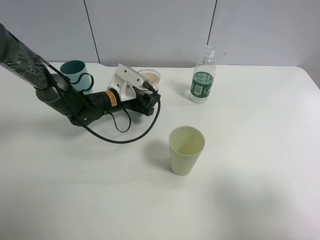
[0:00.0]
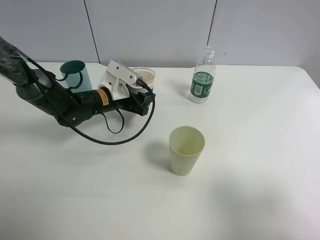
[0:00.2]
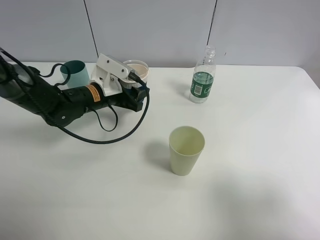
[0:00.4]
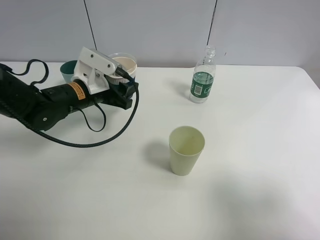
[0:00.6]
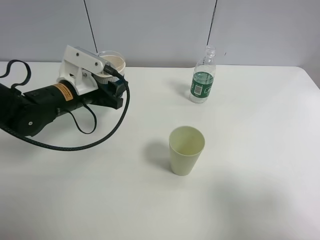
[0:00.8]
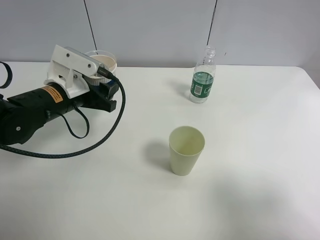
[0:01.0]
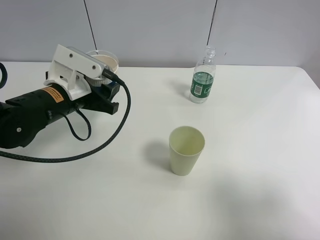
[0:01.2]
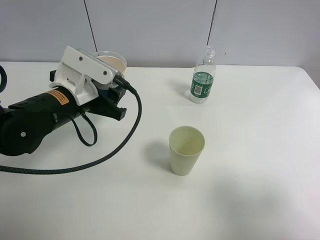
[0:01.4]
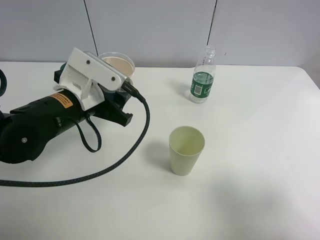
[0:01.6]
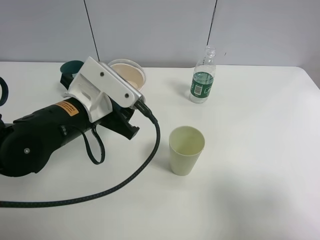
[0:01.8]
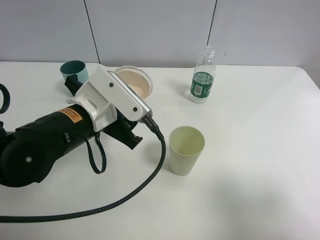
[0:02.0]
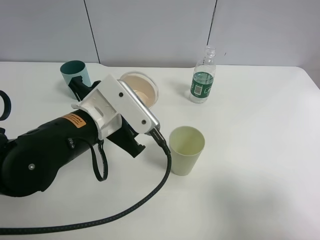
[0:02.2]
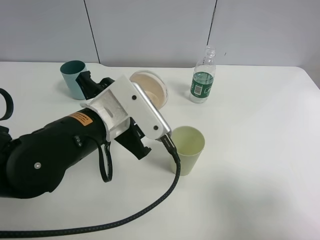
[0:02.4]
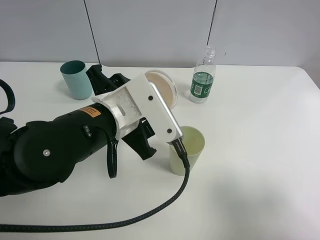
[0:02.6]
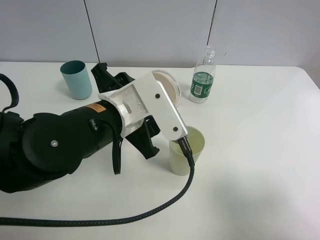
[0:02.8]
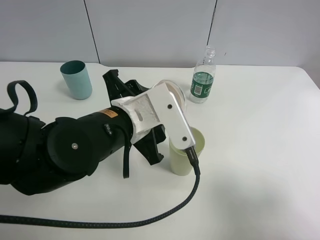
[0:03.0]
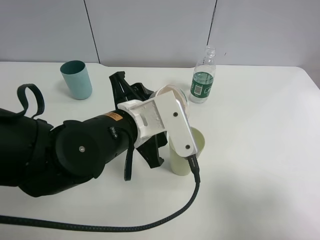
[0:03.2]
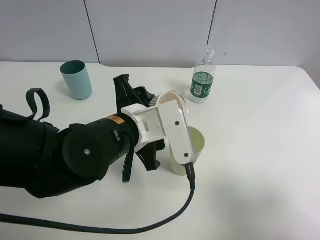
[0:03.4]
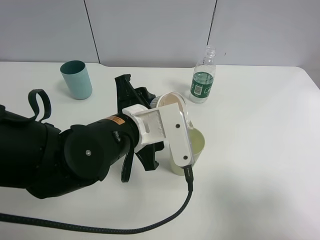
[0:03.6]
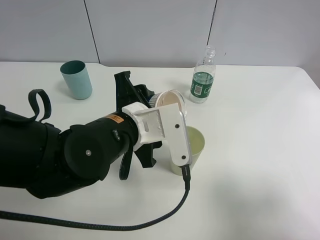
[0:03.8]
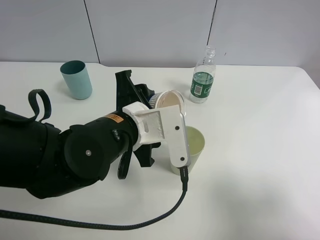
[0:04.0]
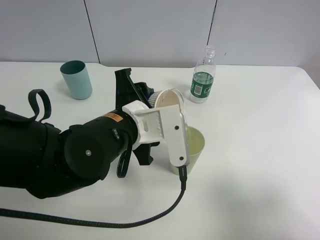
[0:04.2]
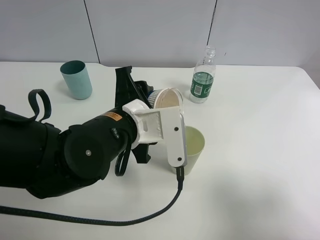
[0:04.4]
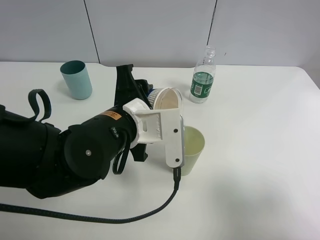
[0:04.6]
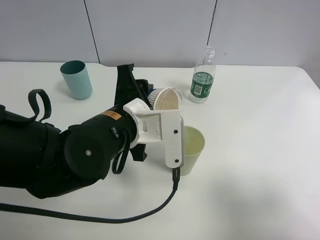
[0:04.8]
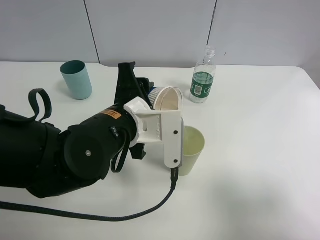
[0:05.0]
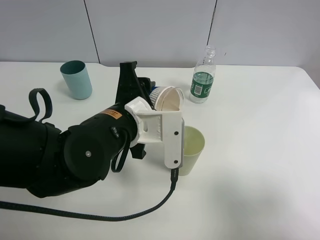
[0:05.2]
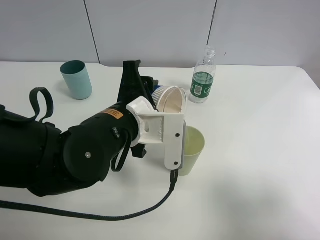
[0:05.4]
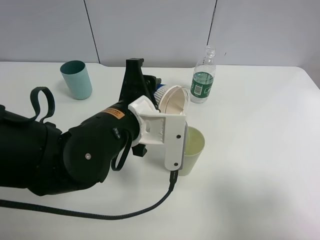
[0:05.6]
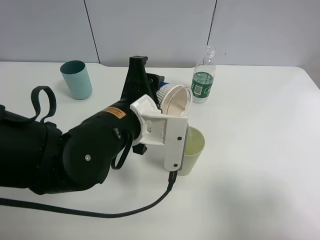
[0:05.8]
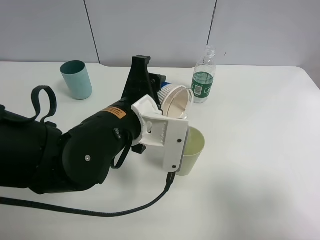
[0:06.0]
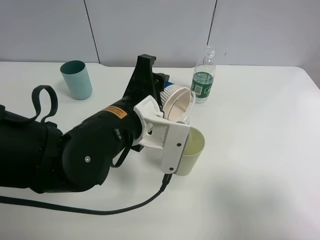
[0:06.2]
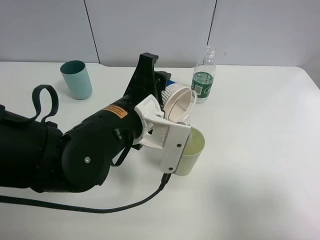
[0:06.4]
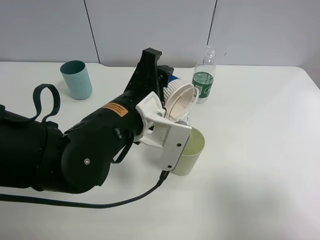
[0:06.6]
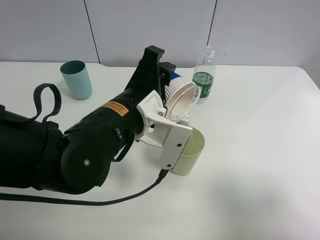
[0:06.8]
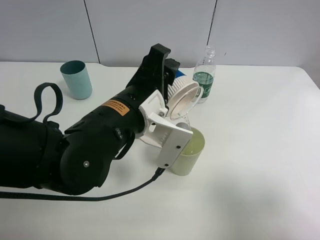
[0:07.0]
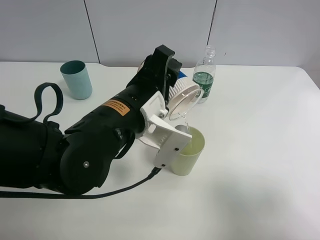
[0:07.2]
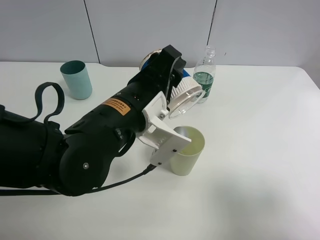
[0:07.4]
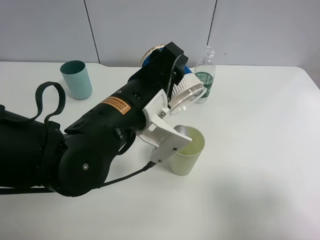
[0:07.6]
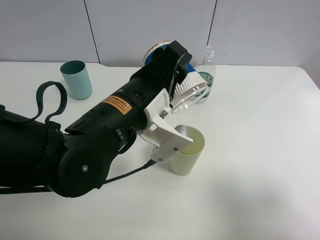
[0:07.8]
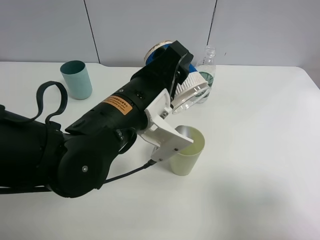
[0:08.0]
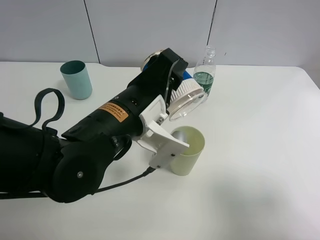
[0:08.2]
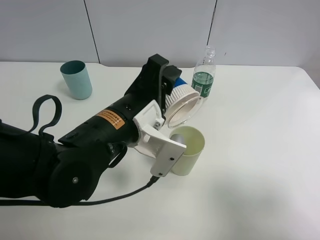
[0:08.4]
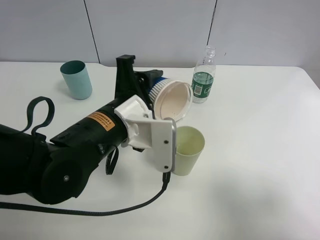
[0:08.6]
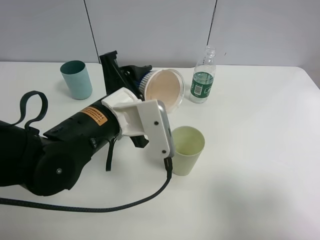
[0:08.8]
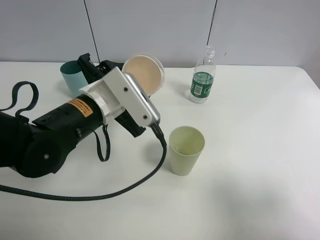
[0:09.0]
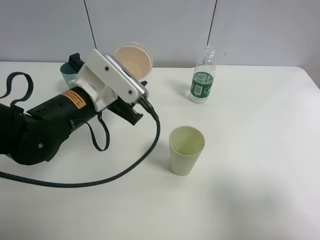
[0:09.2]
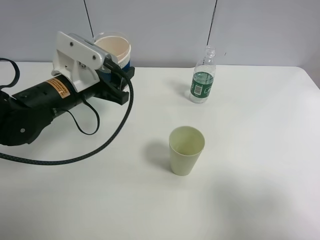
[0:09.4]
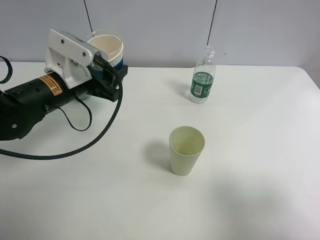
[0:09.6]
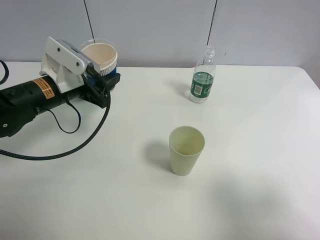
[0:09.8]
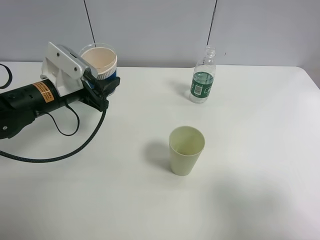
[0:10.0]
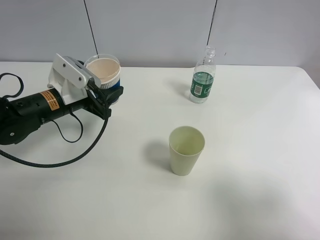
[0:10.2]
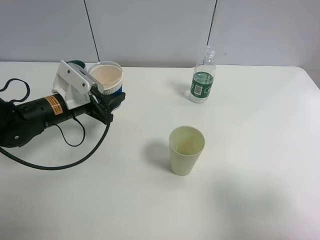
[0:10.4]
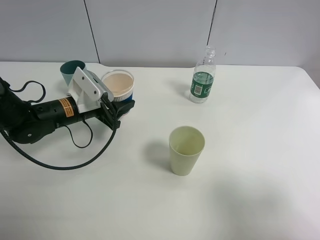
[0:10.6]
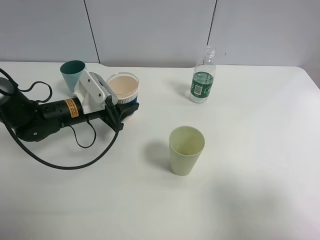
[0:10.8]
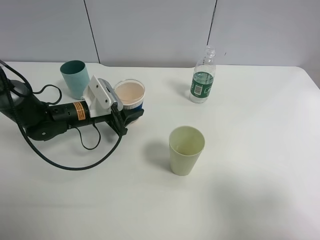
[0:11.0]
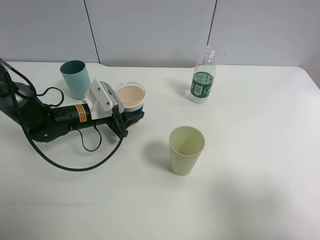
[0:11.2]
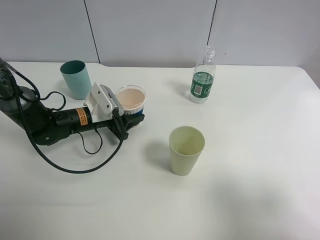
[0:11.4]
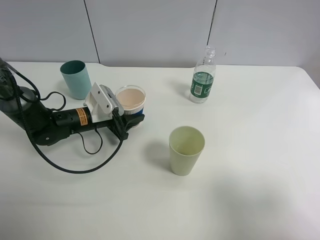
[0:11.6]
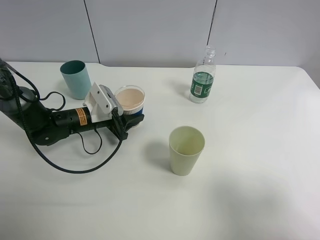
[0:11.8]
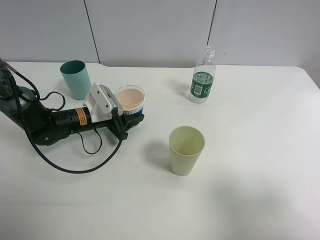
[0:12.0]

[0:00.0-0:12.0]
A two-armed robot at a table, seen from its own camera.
Task of the whole recording: use a clamp to hold the bottle of the drink, pour the beverage into a random cup, then clamp the cup containing the drink and pour the drink into another random cup.
Step, 0:01.0 to 0:07.6: Pour water into the green plastic cup with left gripper.
0:00.0 to 0:01.6: The left gripper goes some 20 cm backward and upward.
0:01.6 to 0:03.0: The left gripper goes approximately 10 cm to the right.
0:04.4 to 0:06.0: There are only small adjustments of the grippers.
0:07.6 to 0:09.0: The left gripper is displaced to the left by roughly 5 cm.
0:09.0 to 0:10.4: The left gripper heads to the left, forward and downward, covering some 10 cm.
0:10.4 to 0:12.0: The left gripper travels downward by roughly 5 cm.

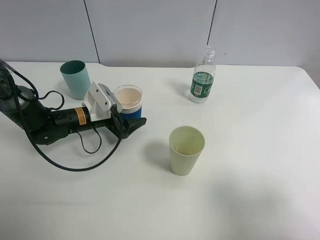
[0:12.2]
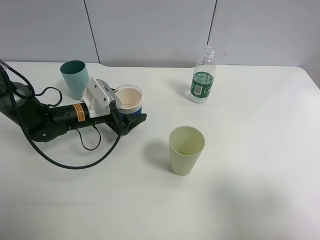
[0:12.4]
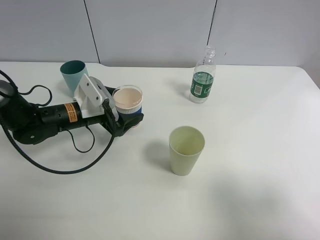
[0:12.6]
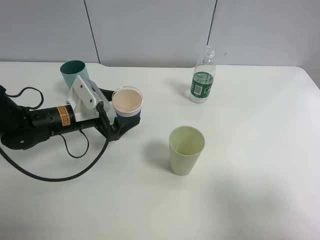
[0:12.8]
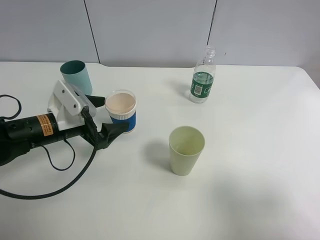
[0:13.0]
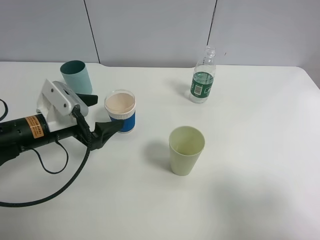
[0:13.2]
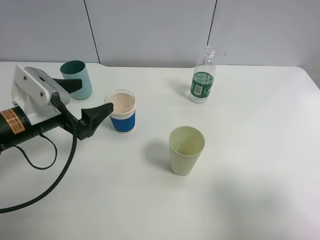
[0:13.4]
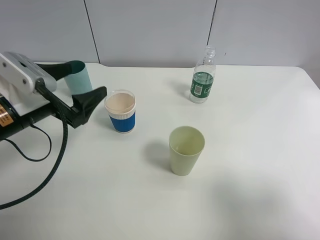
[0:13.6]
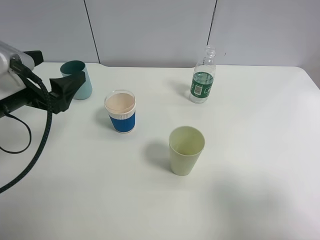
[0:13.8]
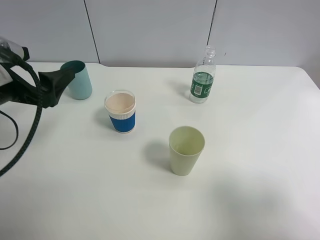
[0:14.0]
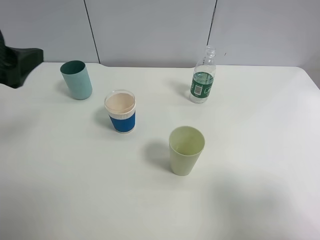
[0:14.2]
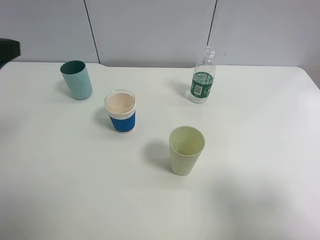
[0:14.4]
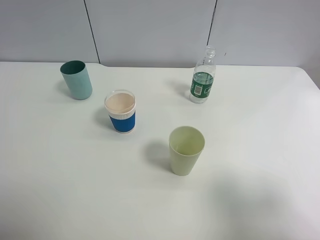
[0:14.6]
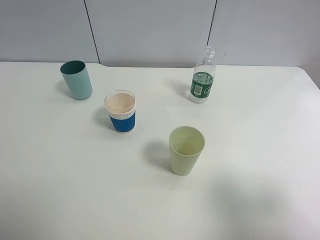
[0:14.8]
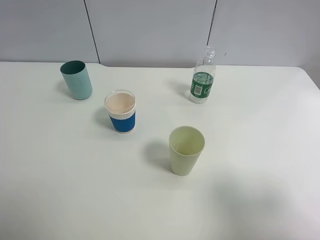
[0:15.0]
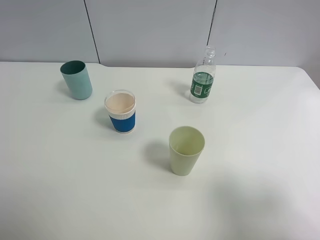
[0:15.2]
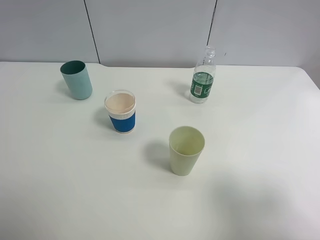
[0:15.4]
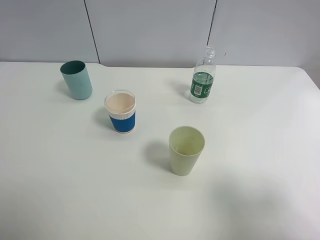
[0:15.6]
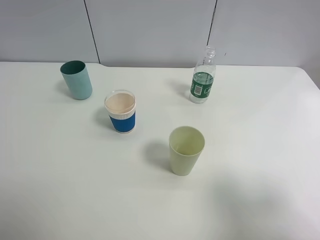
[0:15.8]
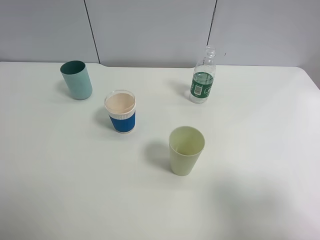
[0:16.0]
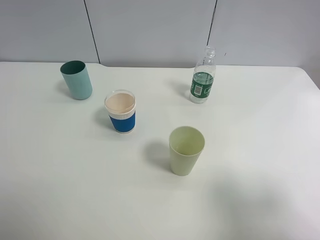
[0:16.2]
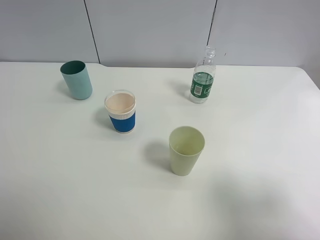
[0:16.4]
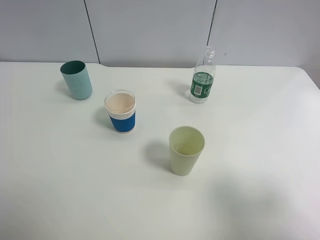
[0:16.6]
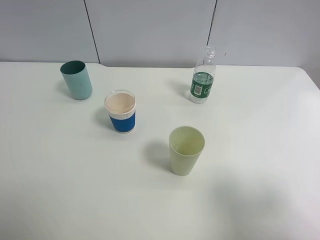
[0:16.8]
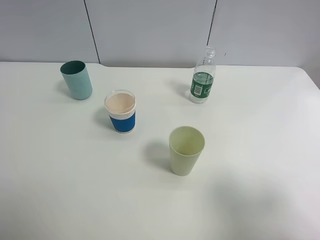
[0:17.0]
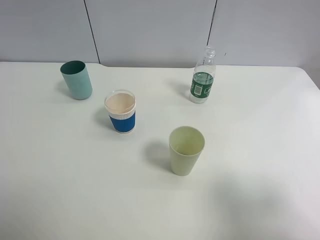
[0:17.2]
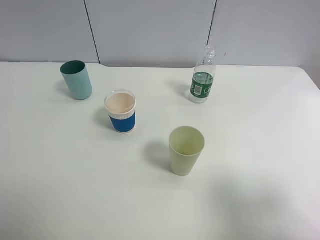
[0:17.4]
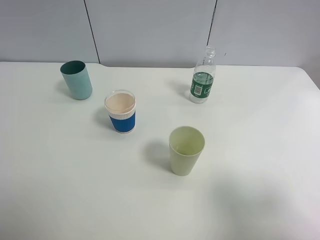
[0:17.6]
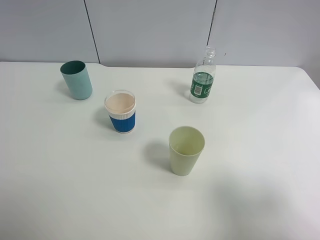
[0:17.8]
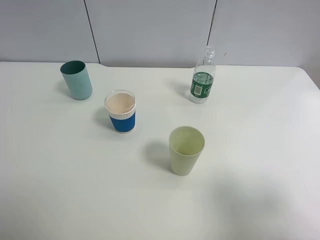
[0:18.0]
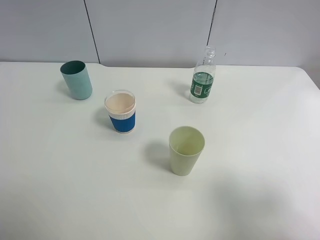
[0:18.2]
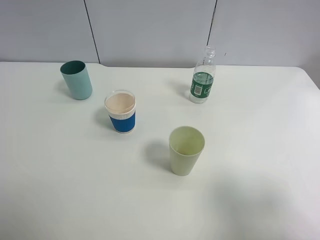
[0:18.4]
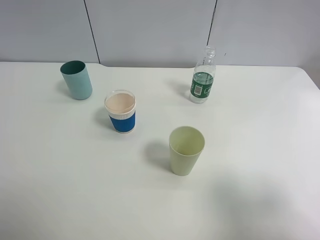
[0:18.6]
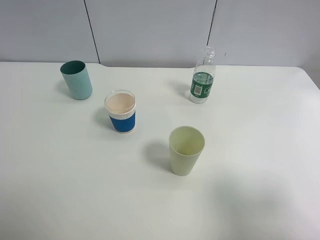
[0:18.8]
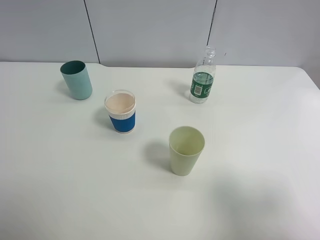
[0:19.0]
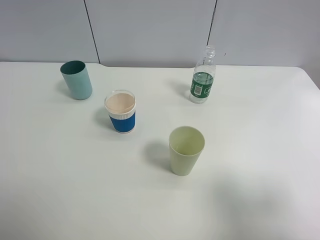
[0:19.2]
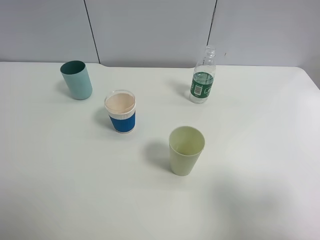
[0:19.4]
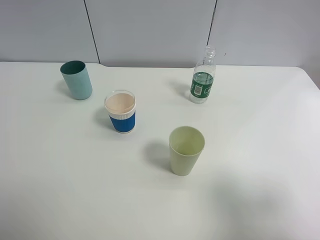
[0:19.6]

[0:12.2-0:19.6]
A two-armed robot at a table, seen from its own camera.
Task of the whole recording: use a clamp to hold the bottle of the drink, pour the beverage into a random cup, then clamp the cup containing the drink and pour the drink into another random cup.
0:12.2 to 0:13.6: The left gripper travels upward and backward by about 15 cm.
0:13.6 to 0:15.2: The left gripper travels upward, backward and to the left by some 25 cm.
0:16.6 to 0:19.6: Neither gripper changes place.

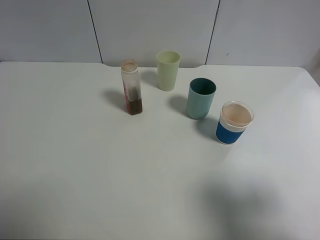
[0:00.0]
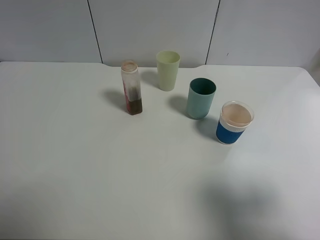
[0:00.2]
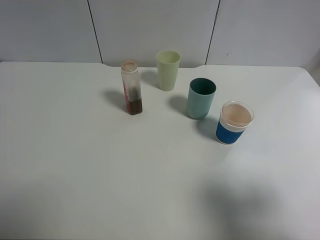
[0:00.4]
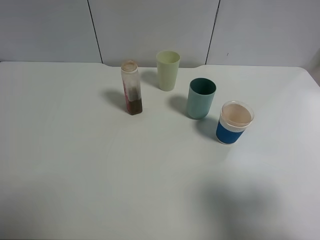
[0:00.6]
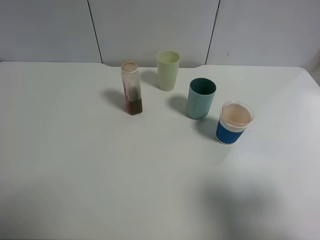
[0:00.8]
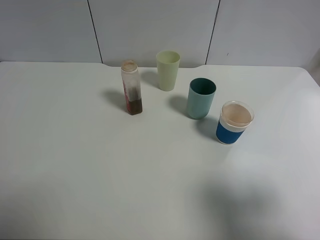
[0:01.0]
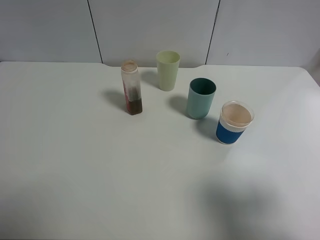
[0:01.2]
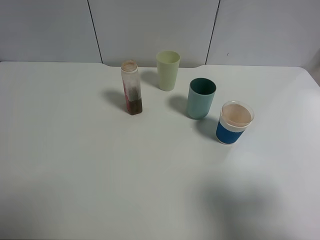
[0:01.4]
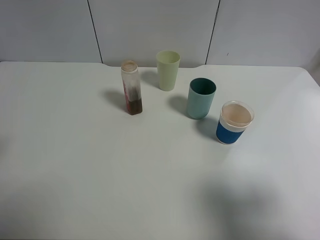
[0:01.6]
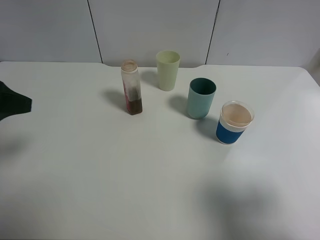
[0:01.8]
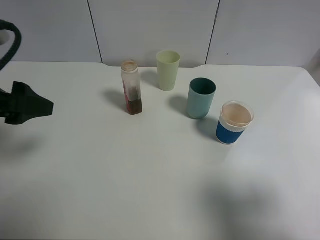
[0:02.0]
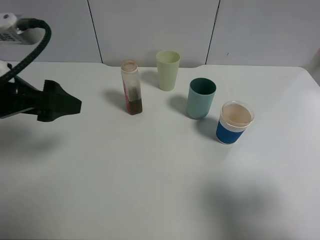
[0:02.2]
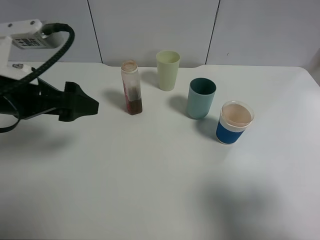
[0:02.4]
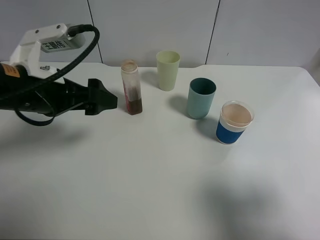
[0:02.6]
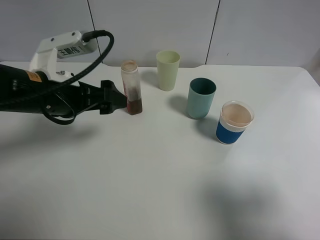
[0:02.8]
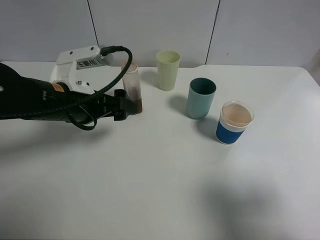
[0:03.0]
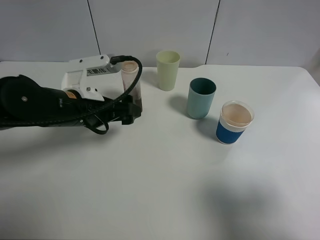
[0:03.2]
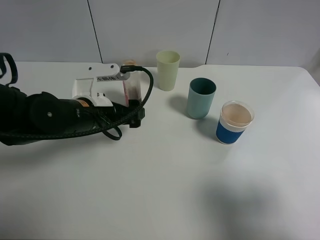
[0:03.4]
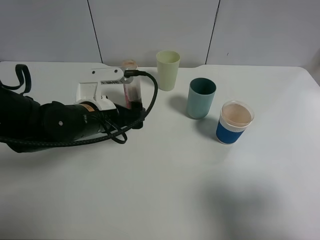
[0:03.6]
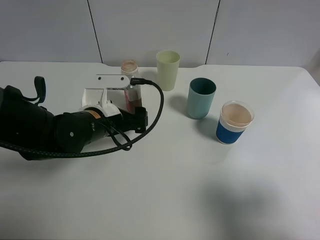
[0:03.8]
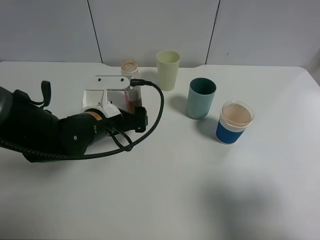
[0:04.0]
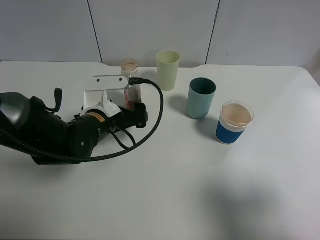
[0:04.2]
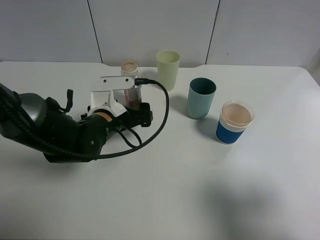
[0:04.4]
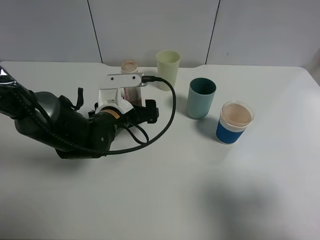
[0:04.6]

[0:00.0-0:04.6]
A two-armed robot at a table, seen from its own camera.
Task of the whole recording: use a clamp to hold the bottle of the drink, pour the beverage into a random cup, then clamp the cup containing the drink and pour the drink into another random cup.
0:01.6 to 0:03.0: The left gripper moves to the right, forward and downward, about 20 cm.
0:03.0 to 0:04.6: The left gripper shifts about 10 cm downward and to the right.
